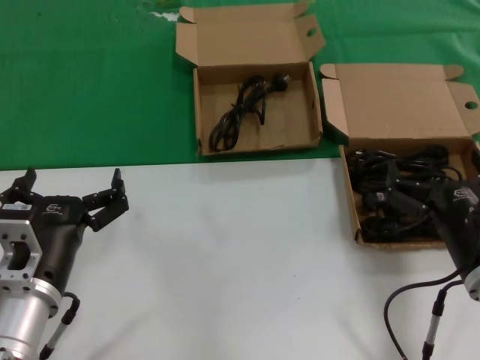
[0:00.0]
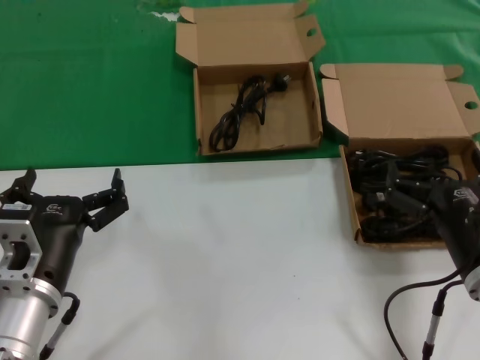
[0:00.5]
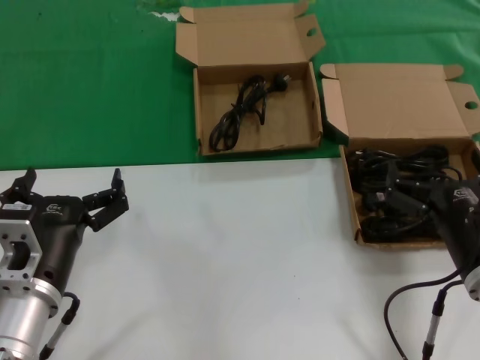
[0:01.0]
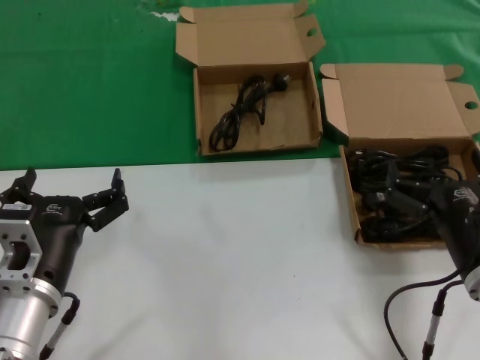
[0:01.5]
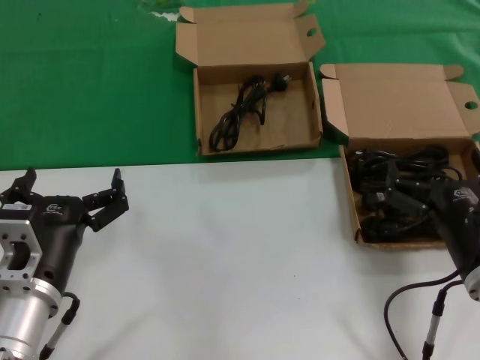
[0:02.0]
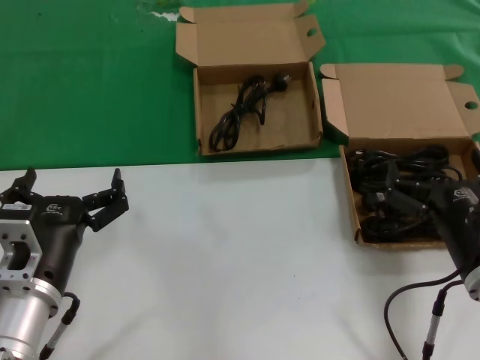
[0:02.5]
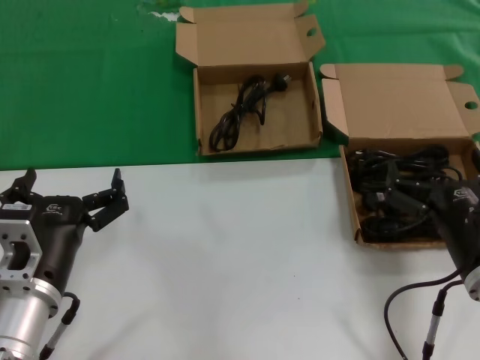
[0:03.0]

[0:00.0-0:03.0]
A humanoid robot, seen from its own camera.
Task of the whole recording: take the parts from the box containing them and put them into an empty box.
0:00.0 to 0:03.0: The two hands keep their place.
